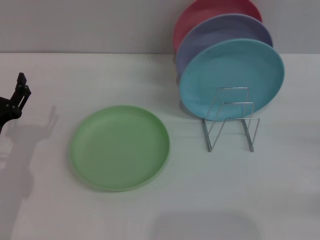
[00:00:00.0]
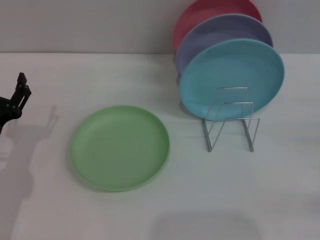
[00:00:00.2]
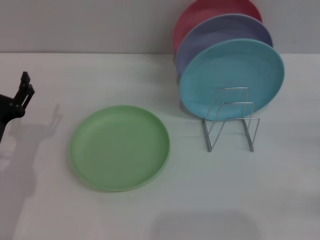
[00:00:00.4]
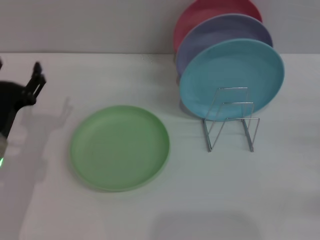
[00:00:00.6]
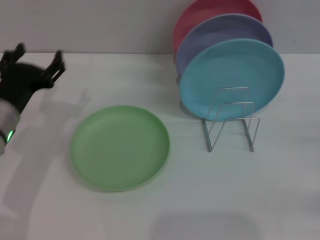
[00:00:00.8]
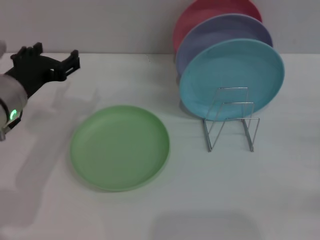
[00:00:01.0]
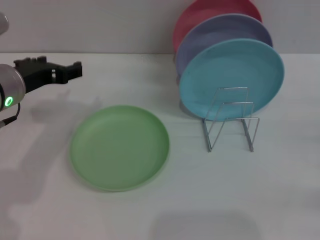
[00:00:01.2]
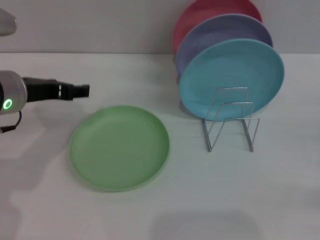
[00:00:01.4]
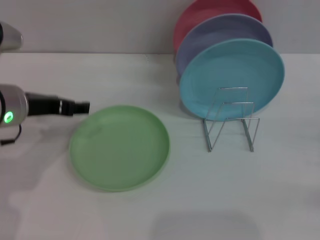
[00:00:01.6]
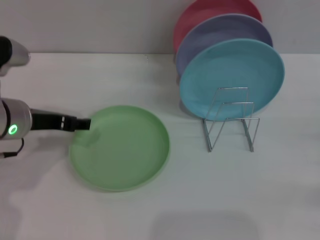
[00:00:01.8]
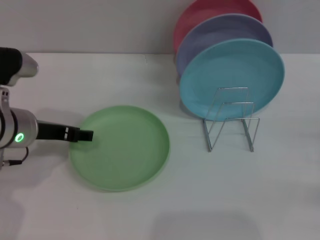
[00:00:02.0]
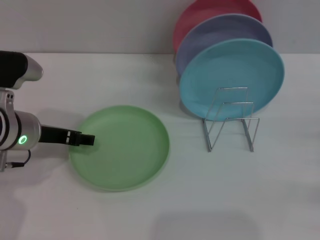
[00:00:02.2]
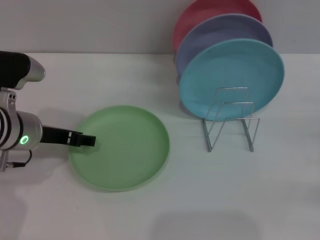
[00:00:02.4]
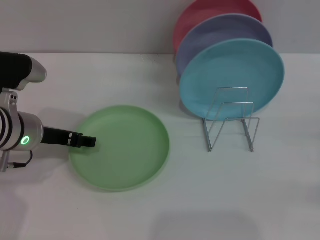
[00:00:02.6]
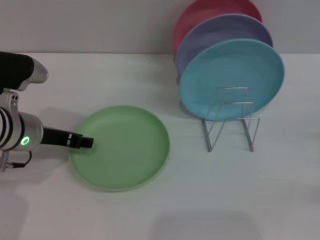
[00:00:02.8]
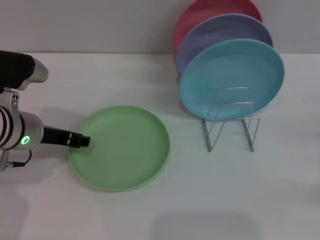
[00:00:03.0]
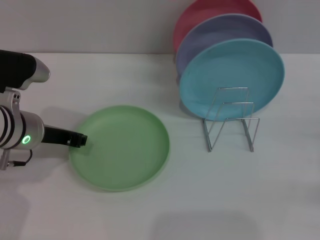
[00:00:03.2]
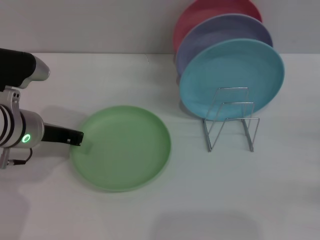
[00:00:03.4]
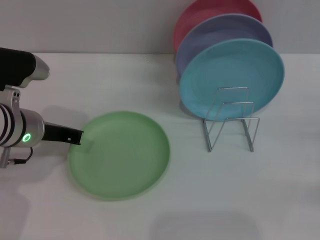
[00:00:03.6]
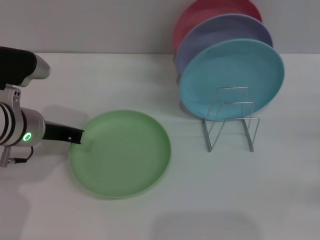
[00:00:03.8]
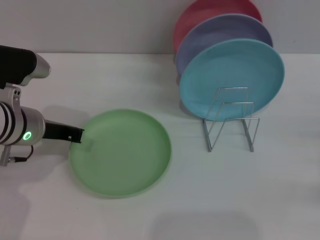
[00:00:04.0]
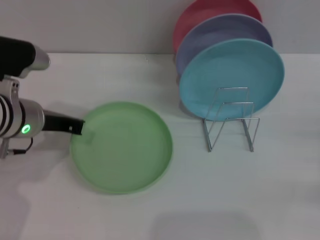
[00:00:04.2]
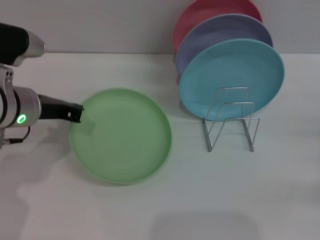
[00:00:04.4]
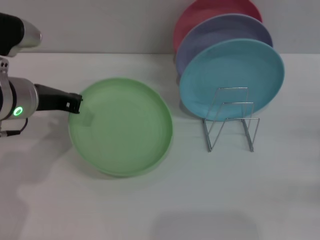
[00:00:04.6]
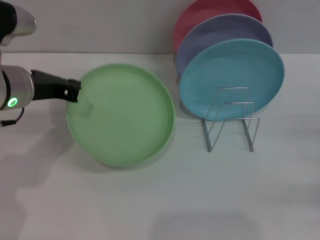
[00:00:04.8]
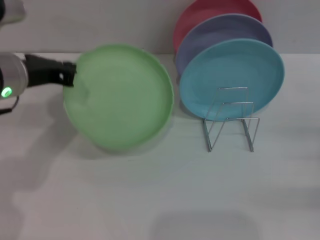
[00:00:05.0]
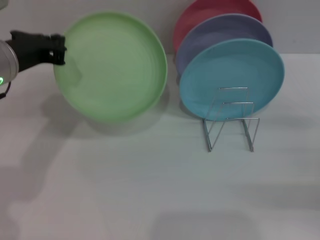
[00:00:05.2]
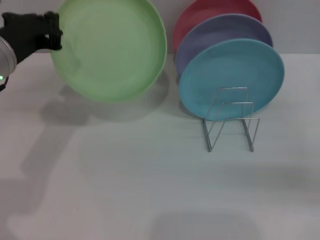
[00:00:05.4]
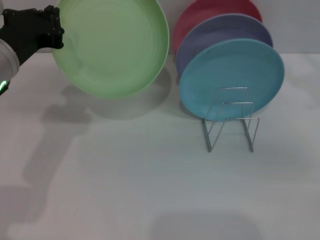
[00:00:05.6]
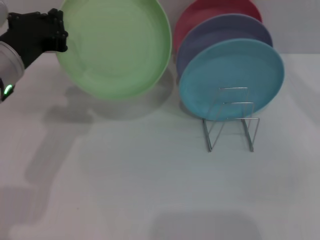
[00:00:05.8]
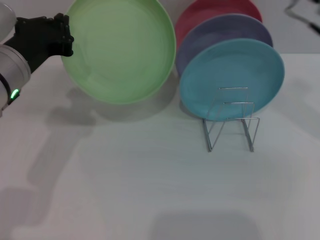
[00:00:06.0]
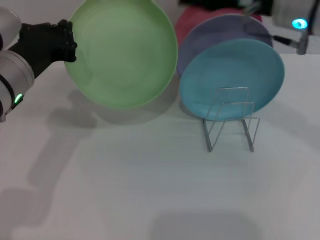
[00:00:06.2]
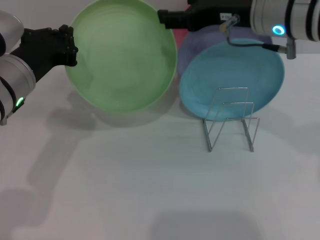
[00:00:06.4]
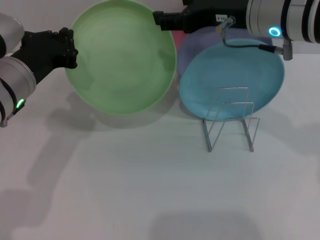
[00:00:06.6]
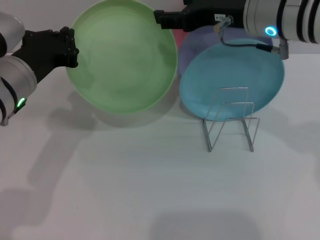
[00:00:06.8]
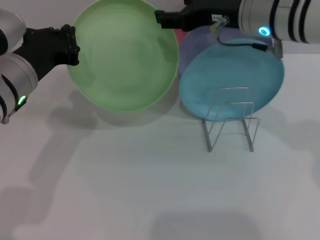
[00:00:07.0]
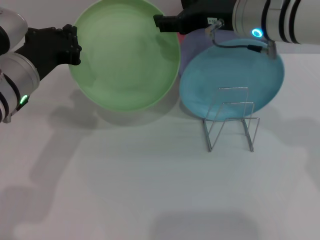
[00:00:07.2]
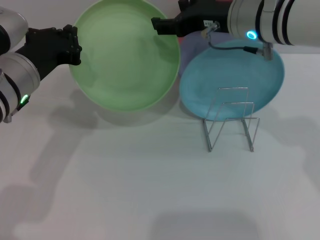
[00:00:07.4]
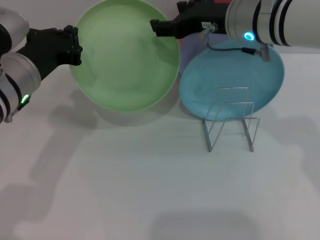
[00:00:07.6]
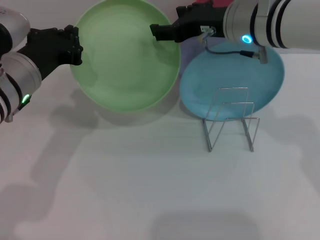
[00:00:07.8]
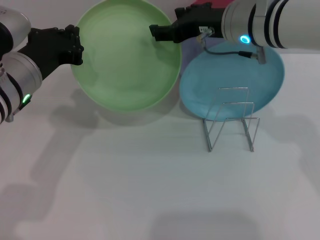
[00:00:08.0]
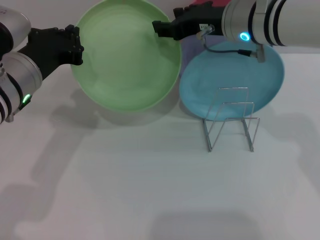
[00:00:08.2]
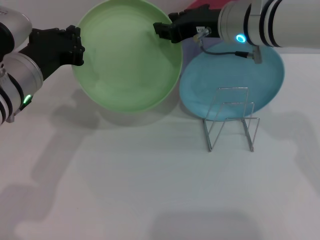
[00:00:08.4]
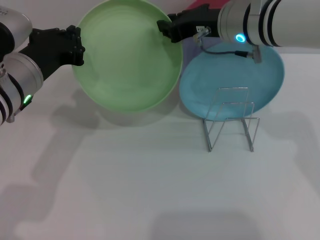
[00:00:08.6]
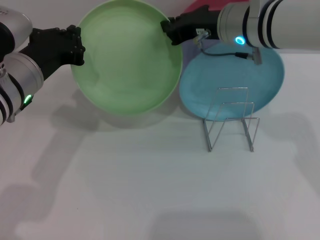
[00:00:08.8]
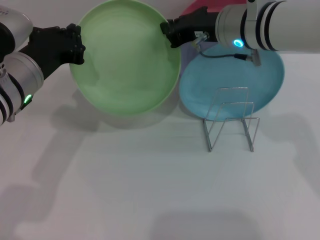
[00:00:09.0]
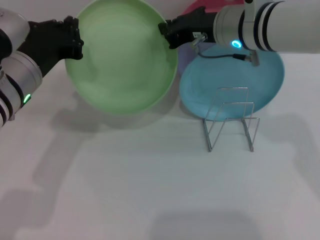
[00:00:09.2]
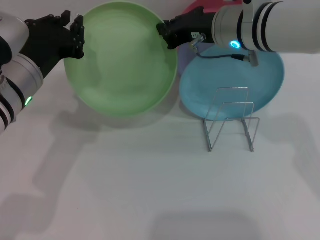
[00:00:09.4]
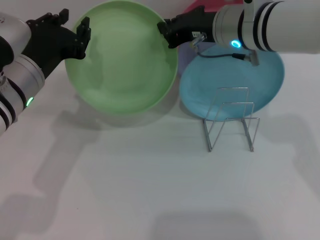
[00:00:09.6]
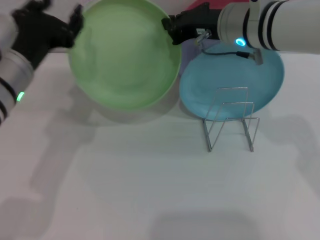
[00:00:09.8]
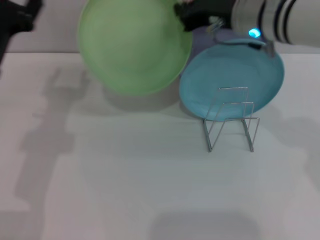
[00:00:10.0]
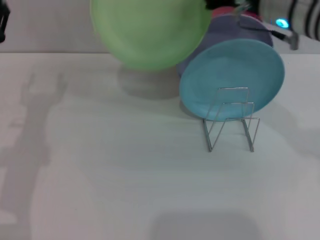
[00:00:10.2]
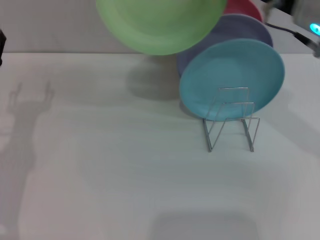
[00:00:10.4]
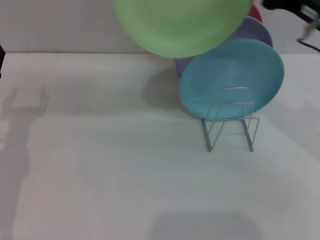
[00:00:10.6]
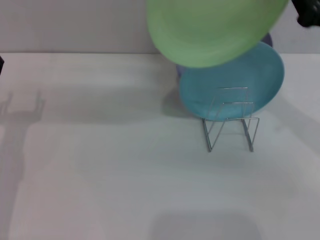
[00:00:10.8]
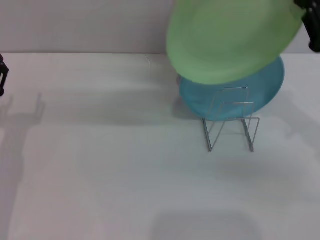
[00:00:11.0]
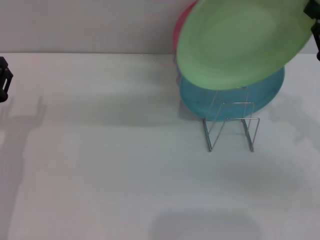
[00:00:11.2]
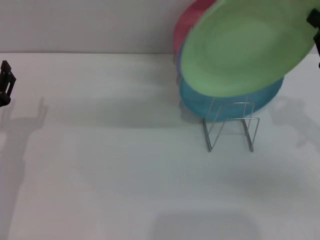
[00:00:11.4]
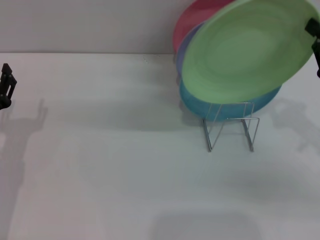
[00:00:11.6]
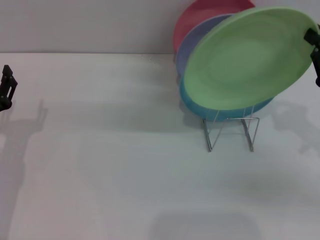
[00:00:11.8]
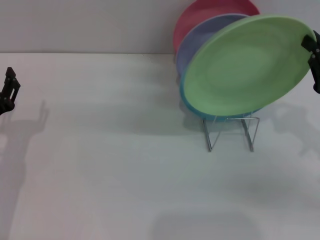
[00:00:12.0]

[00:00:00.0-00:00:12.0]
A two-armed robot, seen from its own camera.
Task of the whole recording: Grip the plate with one hand, pass it to the other, then set it on the shelf.
Step, 00:00:00.0 to 00:00:05.2: Pick up the plate with the left gripper.
Step, 00:00:05.4 to 00:00:09.6: Pass the plate from the left gripper to the right gripper.
00:00:00.0 to 00:00:01.6: The left gripper is displaced upward, forward and to the right by approximately 15 cm.
00:00:01.6 to 00:00:03.0: The grippers move only a little.
00:00:03.0 to 00:00:04.4: The left gripper closes its fingers.
00:00:04.4 to 00:00:06.0: The right gripper is displaced upward, to the left and forward by about 30 cm.
00:00:06.0 to 00:00:07.6: The right gripper shifts roughly 10 cm to the left.
00:00:07.6 to 00:00:09.0: The right gripper closes its fingers.
00:00:09.0 to 00:00:10.4: The right gripper heads to the right and backward, covering approximately 10 cm, while the left gripper heads to the left and downward, covering about 10 cm, and opens up.
00:00:10.4 to 00:00:12.0: The left gripper changes place by about 5 cm. The right gripper is displaced to the right, downward and backward by roughly 20 cm.

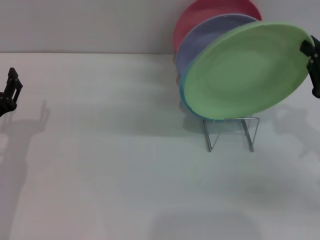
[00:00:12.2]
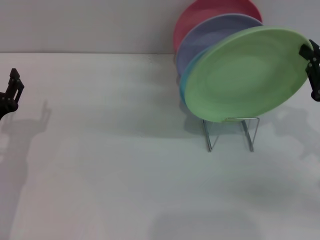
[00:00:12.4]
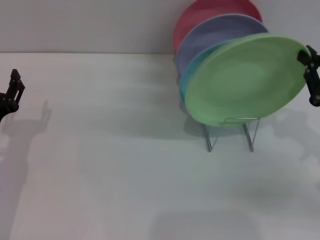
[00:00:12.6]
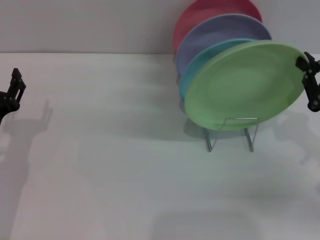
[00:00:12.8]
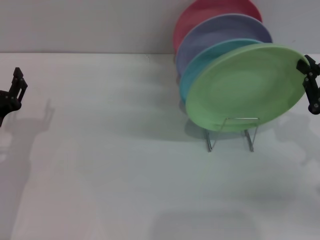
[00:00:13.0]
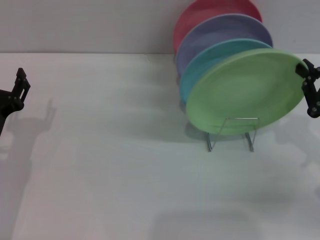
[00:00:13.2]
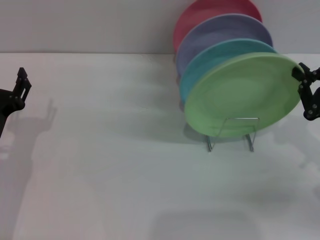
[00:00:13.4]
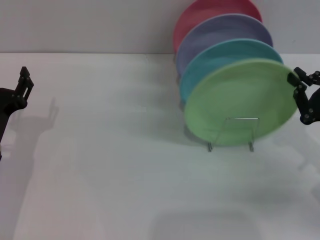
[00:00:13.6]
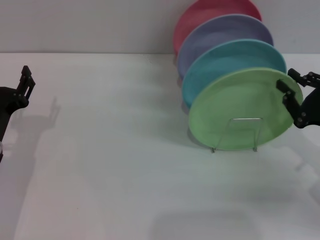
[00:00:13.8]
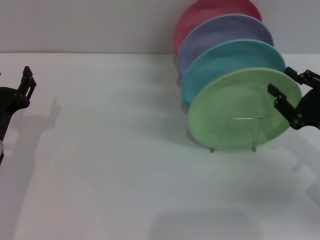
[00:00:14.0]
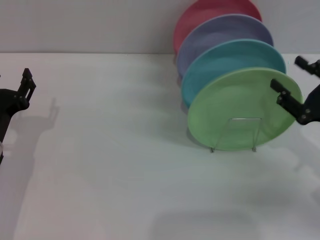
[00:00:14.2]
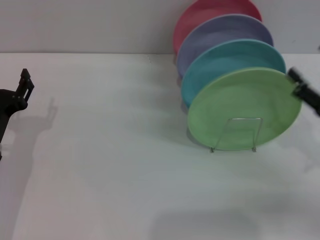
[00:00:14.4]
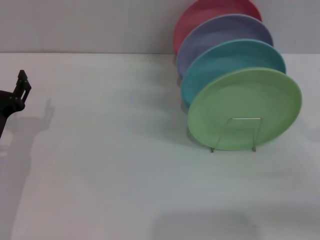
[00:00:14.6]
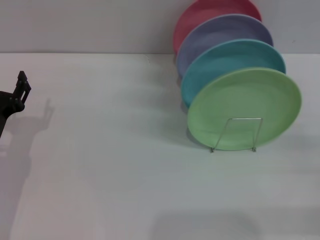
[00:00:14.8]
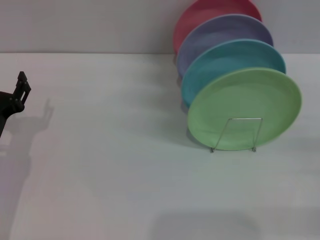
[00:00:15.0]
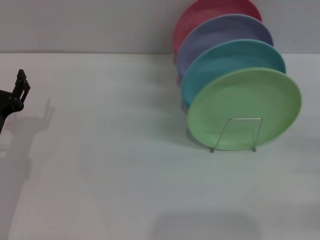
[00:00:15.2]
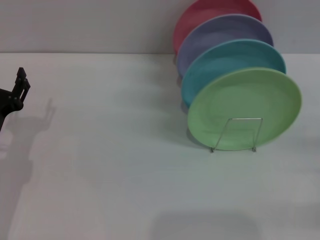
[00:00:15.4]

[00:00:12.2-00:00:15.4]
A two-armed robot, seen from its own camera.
Task of the whole recording: Grip the plate with one hand, pass it to the other, then set it on the shelf.
Step, 00:00:12.2 to 00:00:14.2: Place the plate on the shelf with the right gripper.
00:00:12.2 to 00:00:13.8: The grippers stay close to where they were, moving slightly.
00:00:13.8 to 00:00:15.4: The right gripper travels to the right by about 10 cm, and opens up.
